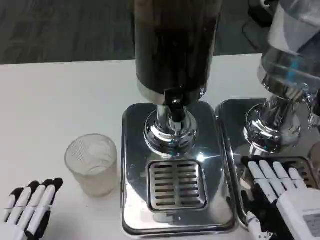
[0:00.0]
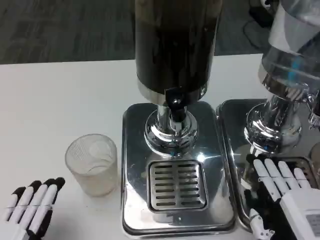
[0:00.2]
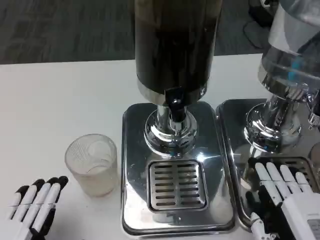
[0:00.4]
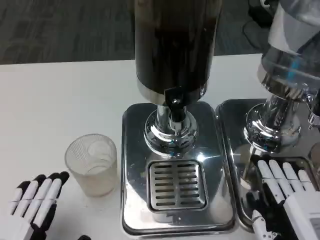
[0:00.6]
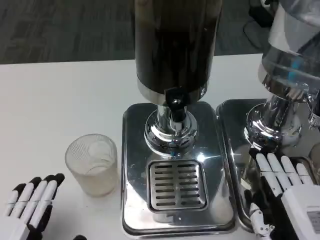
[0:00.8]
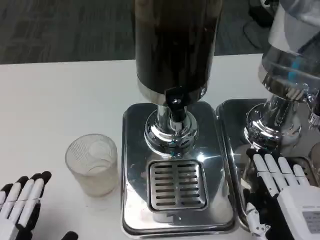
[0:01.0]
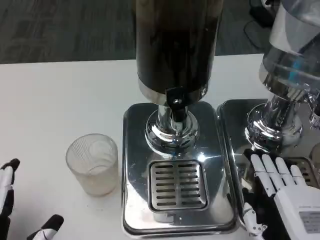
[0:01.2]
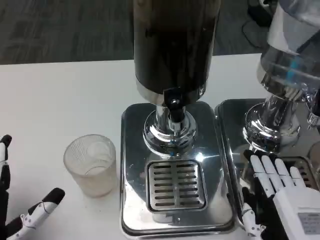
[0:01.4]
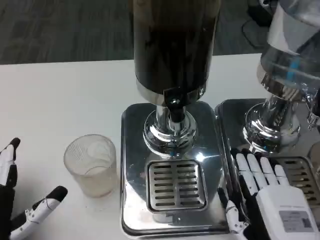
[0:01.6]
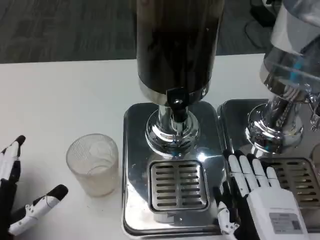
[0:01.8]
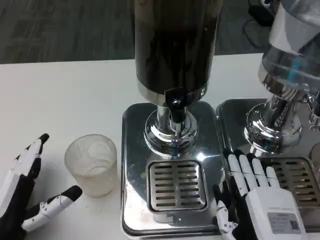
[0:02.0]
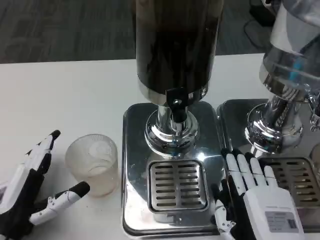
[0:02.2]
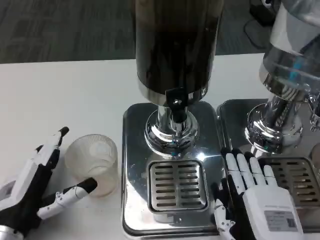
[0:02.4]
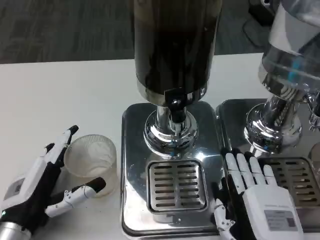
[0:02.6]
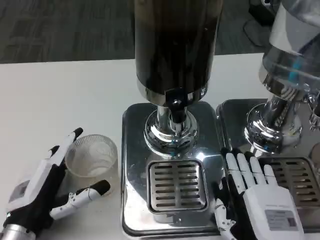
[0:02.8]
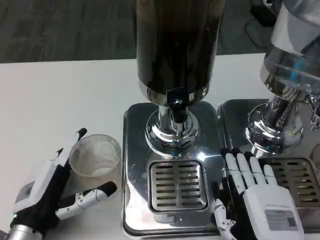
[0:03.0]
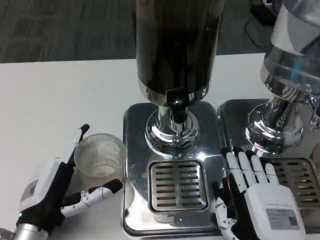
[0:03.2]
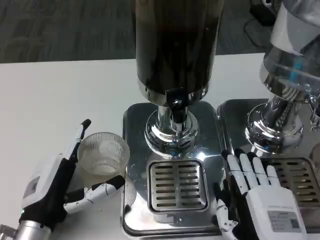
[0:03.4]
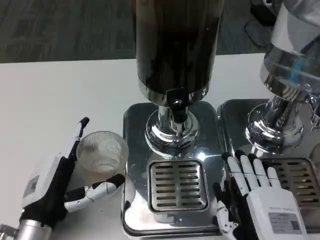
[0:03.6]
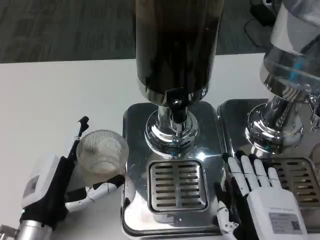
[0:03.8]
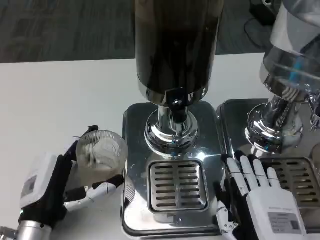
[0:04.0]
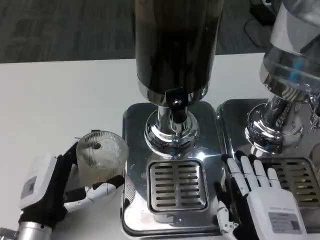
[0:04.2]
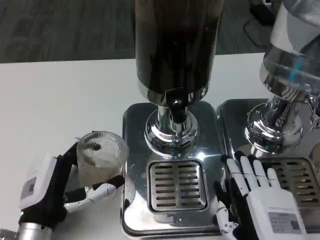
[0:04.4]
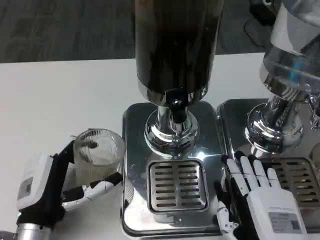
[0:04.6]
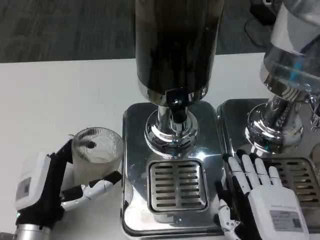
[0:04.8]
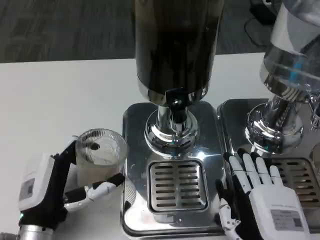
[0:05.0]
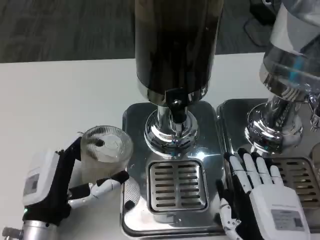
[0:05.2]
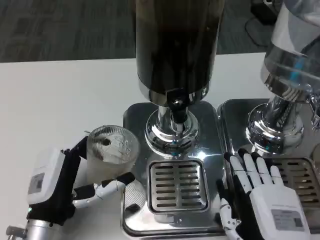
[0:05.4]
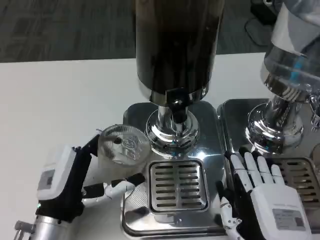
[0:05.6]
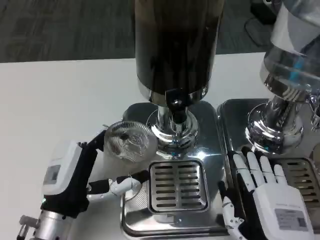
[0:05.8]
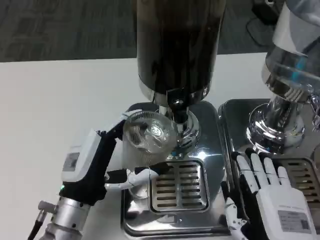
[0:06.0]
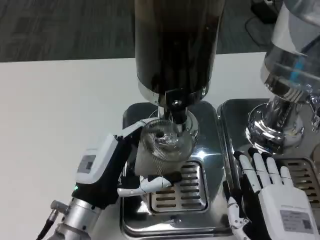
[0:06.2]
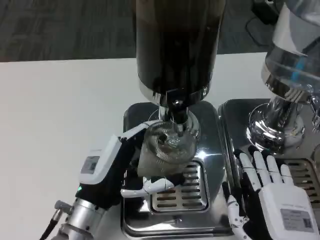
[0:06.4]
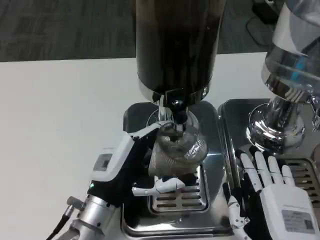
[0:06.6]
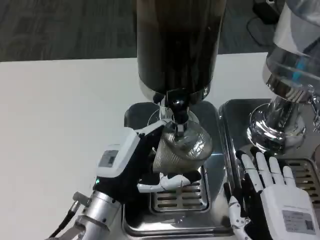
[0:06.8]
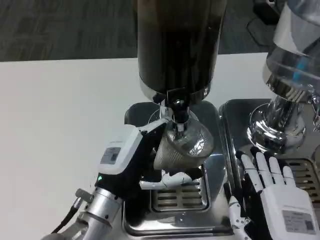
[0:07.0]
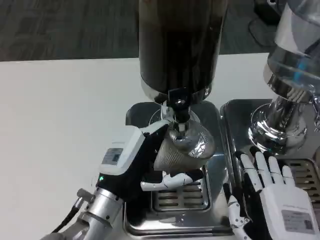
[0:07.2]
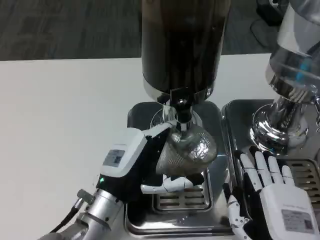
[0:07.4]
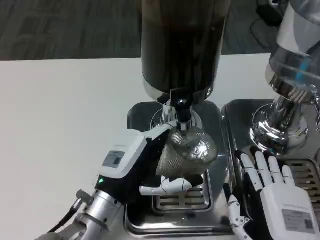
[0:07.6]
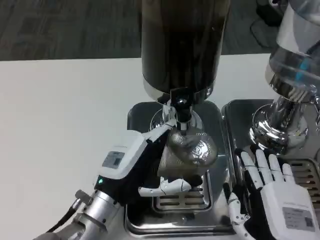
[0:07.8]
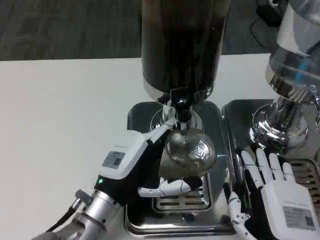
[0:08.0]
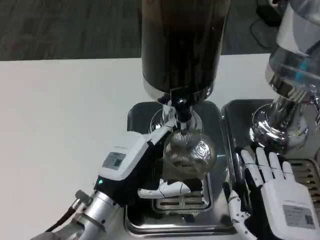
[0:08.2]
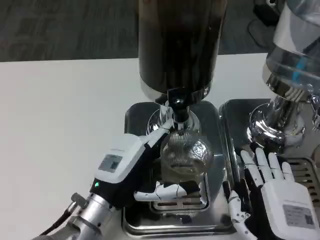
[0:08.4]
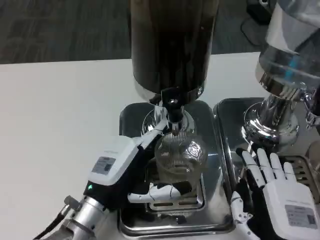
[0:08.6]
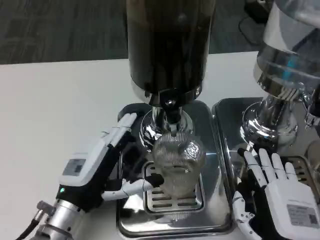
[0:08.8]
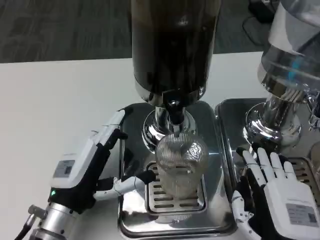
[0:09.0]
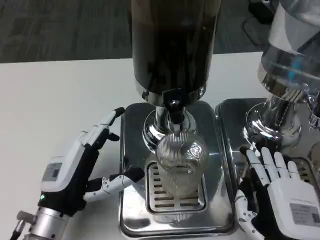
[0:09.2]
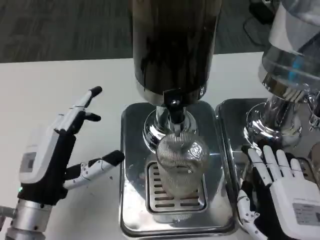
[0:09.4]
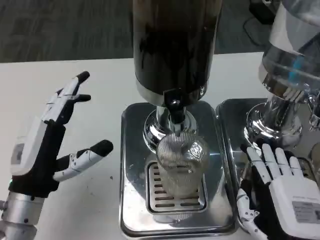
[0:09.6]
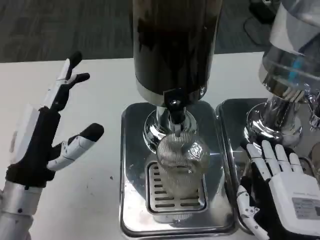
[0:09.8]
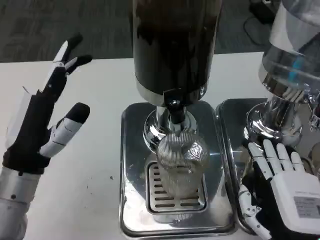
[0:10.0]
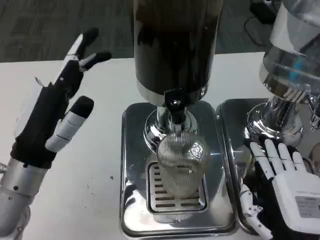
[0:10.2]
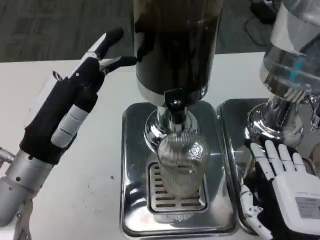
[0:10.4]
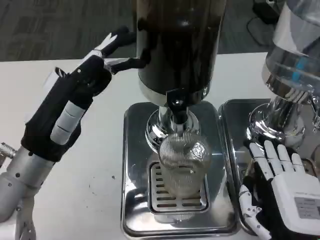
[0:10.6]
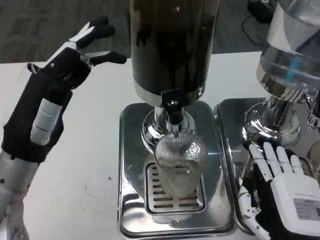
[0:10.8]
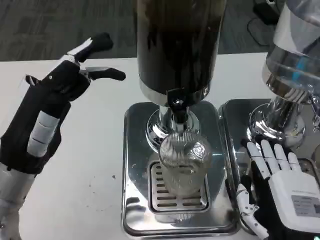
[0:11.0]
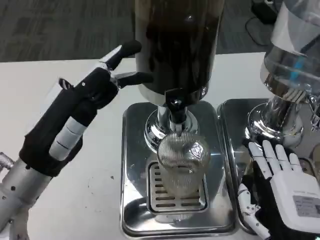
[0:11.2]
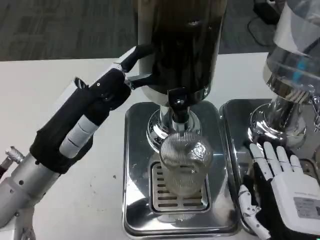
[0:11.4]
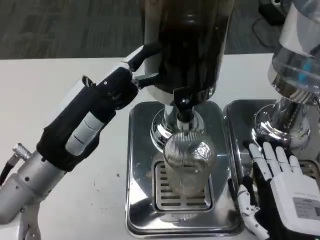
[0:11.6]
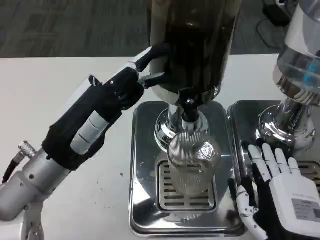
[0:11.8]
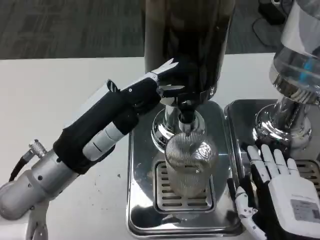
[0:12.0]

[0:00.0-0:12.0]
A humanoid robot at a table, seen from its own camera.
Task of the whole recording: Grasp the cup under the faucet to collect the drink, then remove the cup.
0:00.0 to 0:01.6: The right hand changes place by roughly 5 cm. The left hand is displaced forward by roughly 5 cm.
0:01.6 to 0:03.0: The left hand heads forward, covering some 5 cm.
0:03.0 to 0:04.4: There are only small adjustments of the hands.
0:04.4 to 0:06.0: The left hand ends up roughly 5 cm from where it was.
0:07.6 to 0:09.0: The left hand heads to the left, covering approximately 5 cm.
0:09.0 to 0:10.4: The left hand moves upward, some 10 cm.

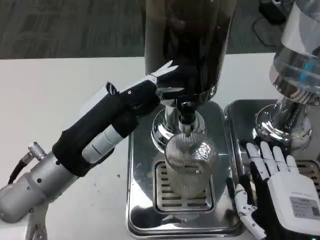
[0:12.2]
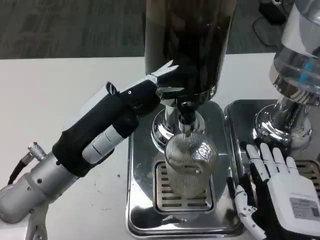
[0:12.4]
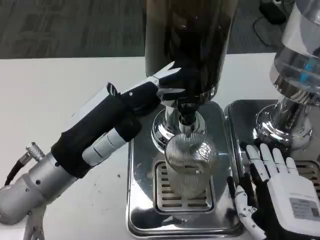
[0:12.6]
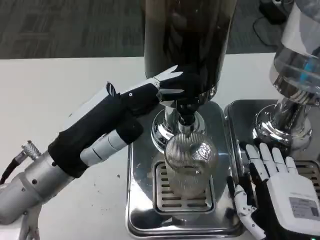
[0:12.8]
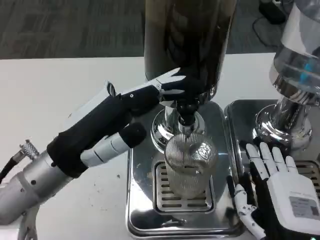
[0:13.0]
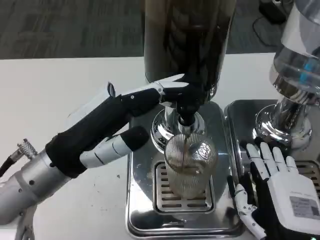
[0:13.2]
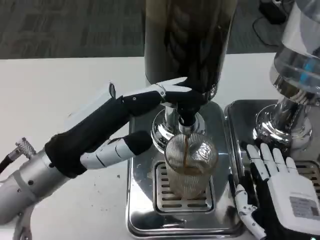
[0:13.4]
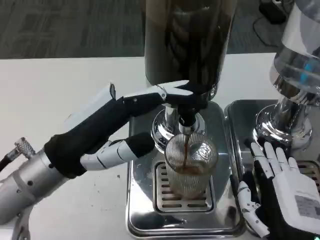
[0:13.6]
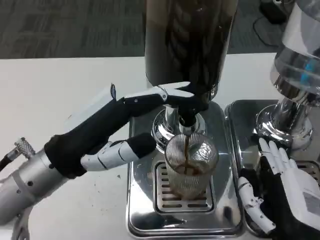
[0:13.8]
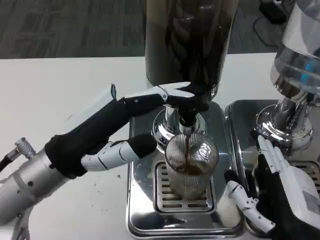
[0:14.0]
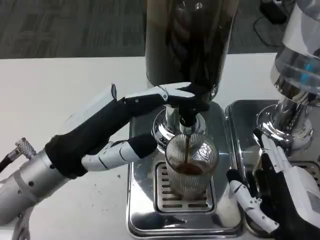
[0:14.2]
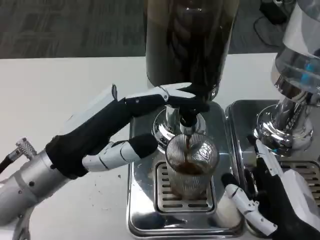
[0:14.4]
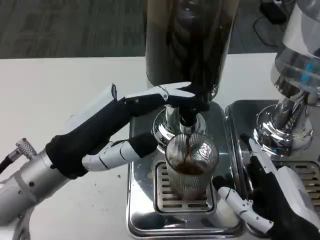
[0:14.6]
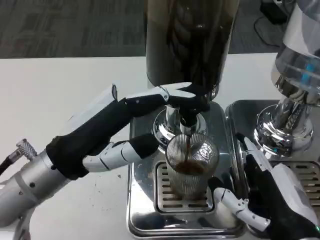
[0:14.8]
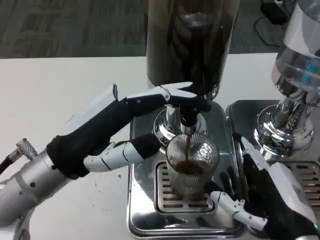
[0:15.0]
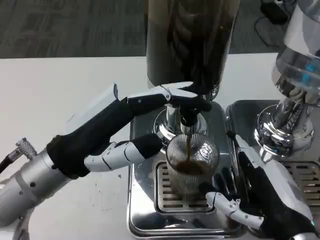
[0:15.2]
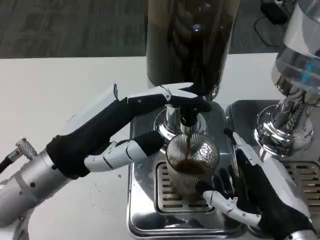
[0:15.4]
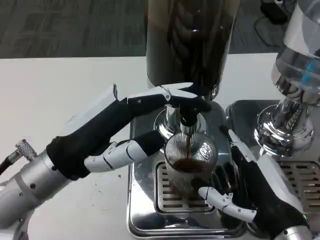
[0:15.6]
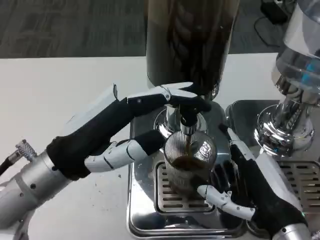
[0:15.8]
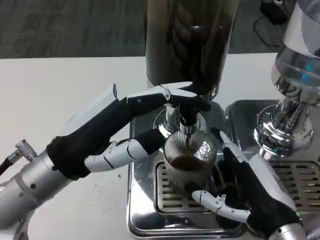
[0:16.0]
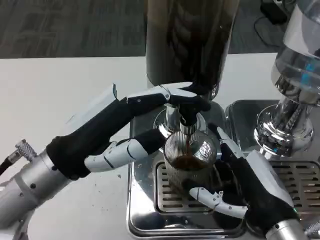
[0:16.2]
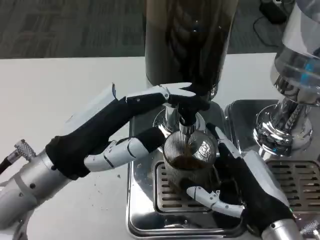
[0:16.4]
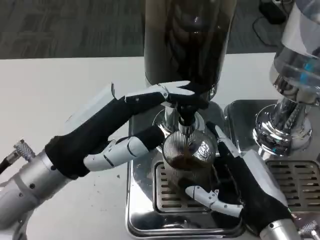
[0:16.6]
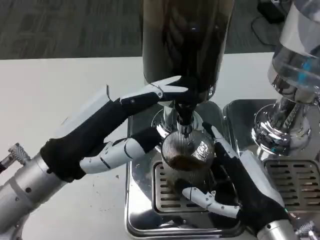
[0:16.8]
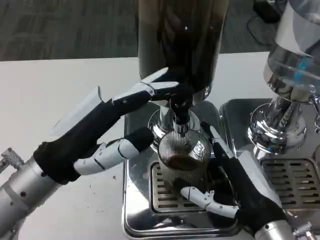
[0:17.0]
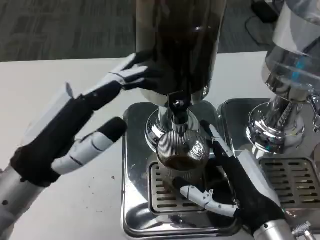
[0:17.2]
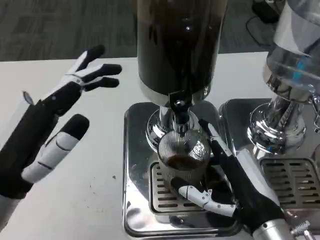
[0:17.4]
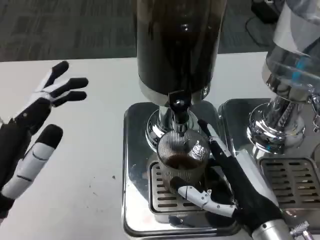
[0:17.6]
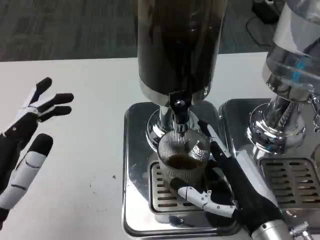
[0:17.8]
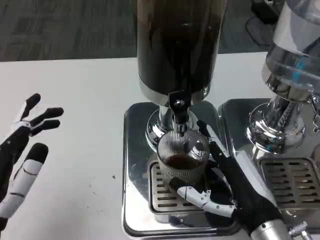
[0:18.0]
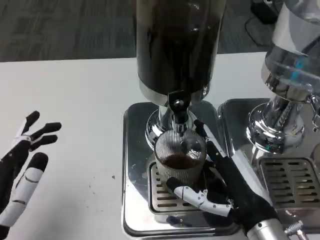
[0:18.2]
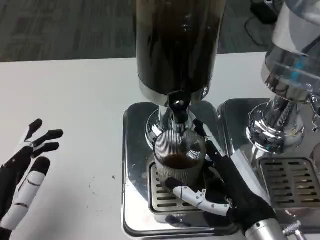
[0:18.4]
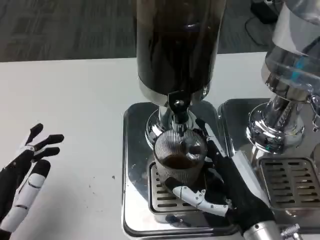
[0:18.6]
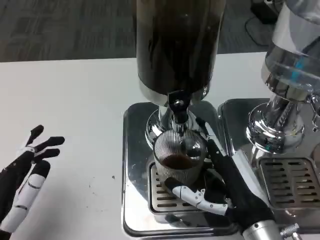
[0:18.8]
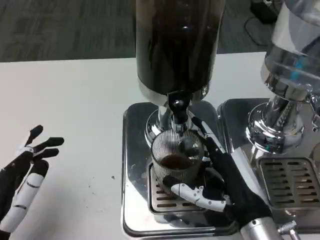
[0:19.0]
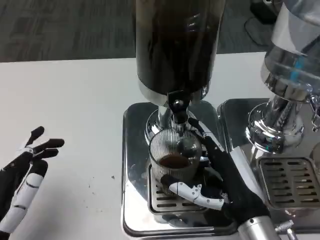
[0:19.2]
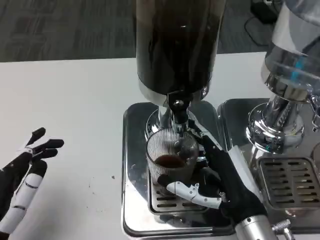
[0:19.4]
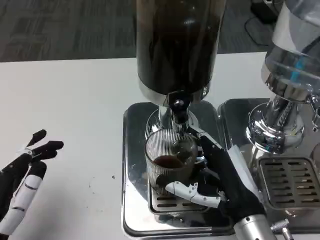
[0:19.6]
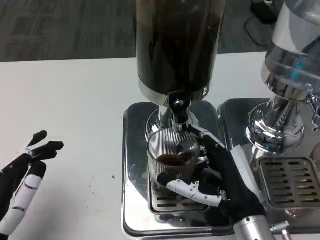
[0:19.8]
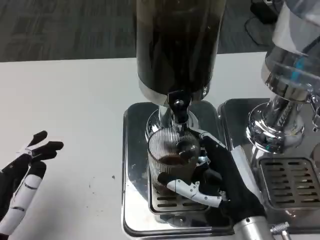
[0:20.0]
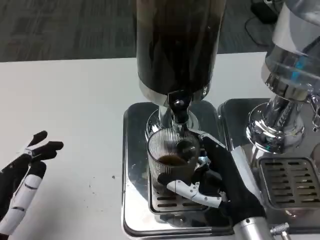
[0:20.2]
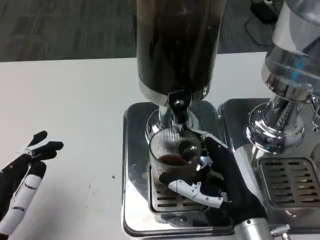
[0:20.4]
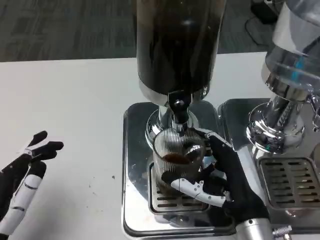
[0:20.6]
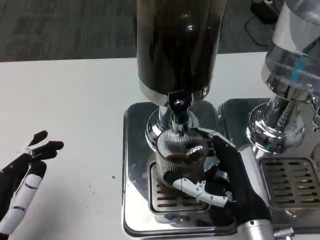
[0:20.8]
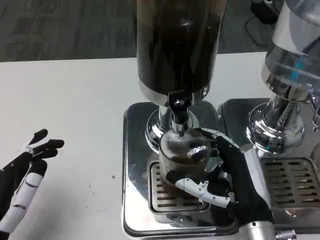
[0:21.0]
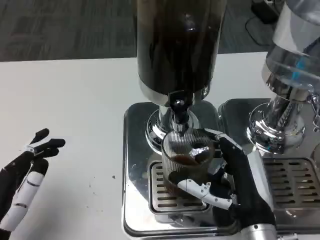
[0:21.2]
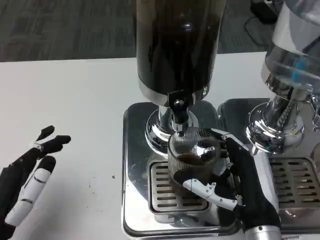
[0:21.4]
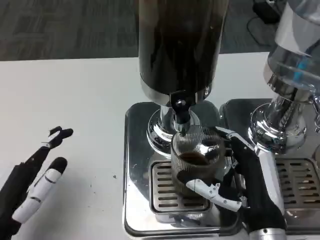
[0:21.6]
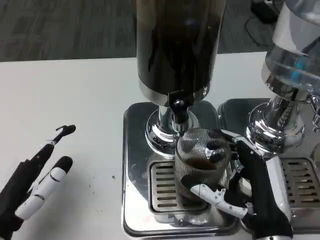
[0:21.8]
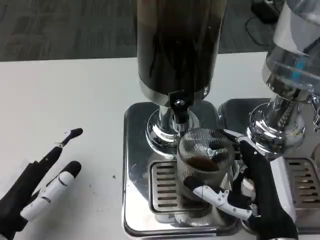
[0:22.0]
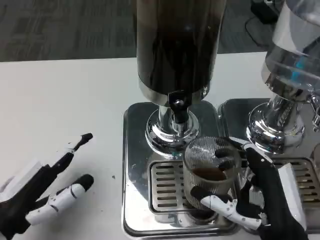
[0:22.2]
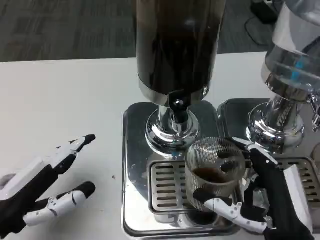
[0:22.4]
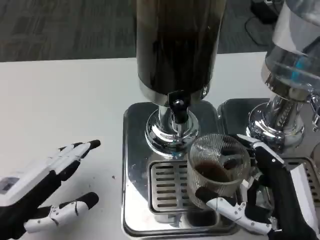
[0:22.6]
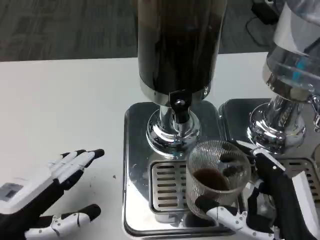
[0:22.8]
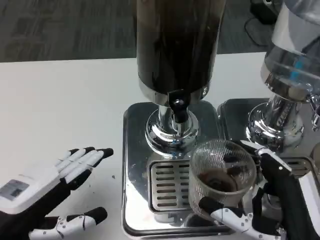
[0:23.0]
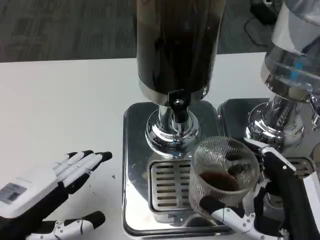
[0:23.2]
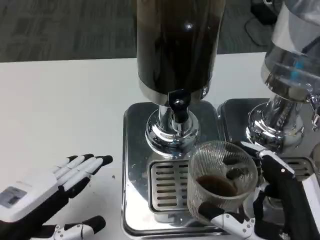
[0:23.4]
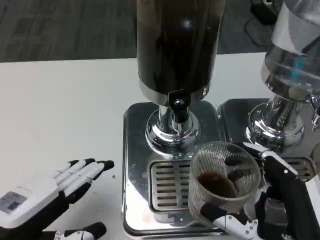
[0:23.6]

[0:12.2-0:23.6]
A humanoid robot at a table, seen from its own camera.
Task of the whole recording: Grasp the cup under the faucet to collect the drink, then remove the cup.
0:12.2 to 0:13.6: There are only small adjustments of the hands.
0:15.0 to 0:16.4: The hands move only a little.
0:16.4 to 0:17.8: The left hand goes about 10 cm backward, to the left and downward.
0:19.4 to 0:20.8: The hands move only a little.
0:20.8 to 0:22.2: The right hand moves about 5 cm.
0:22.2 to 0:23.6: The right hand moves about 5 cm.
